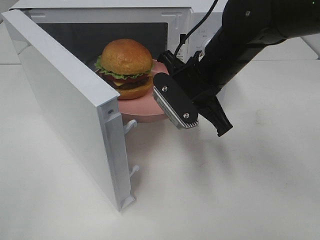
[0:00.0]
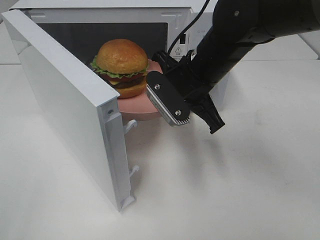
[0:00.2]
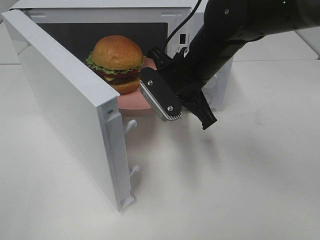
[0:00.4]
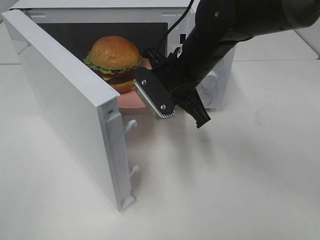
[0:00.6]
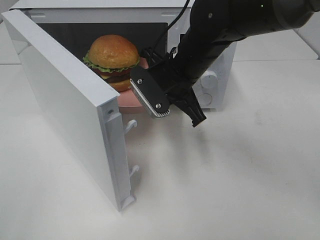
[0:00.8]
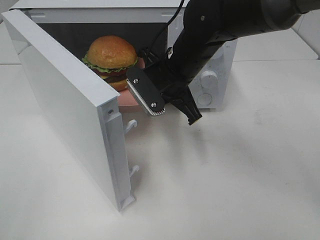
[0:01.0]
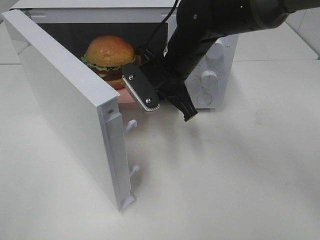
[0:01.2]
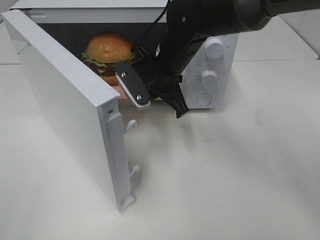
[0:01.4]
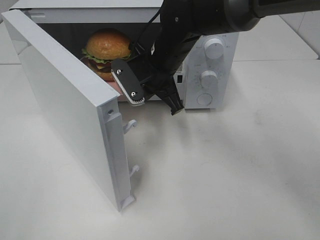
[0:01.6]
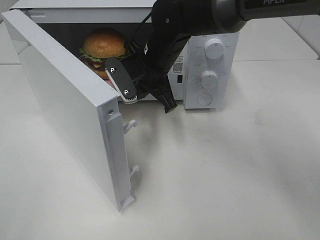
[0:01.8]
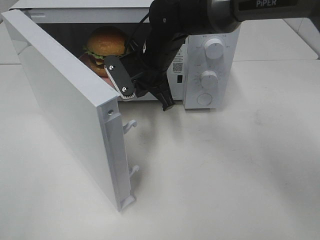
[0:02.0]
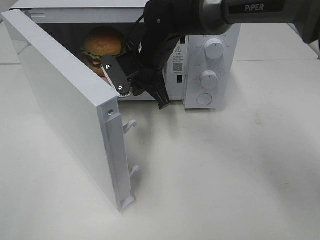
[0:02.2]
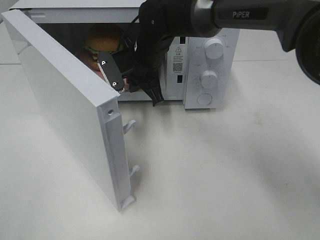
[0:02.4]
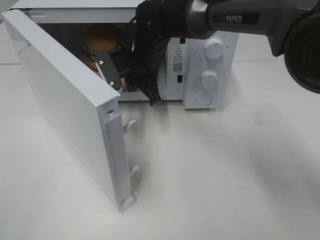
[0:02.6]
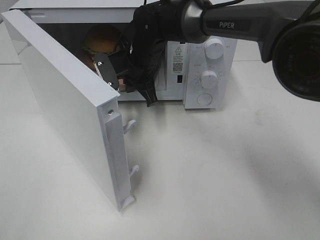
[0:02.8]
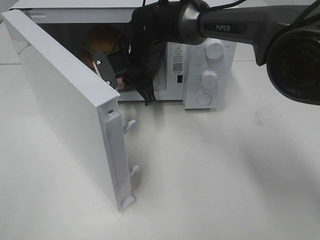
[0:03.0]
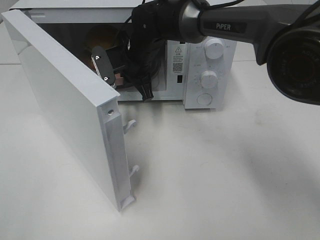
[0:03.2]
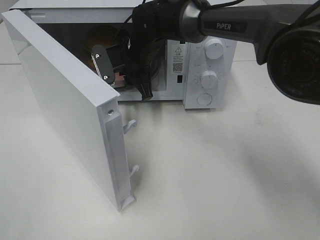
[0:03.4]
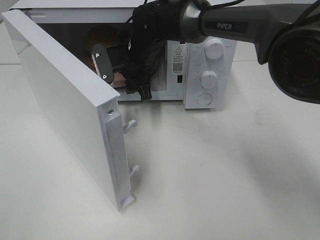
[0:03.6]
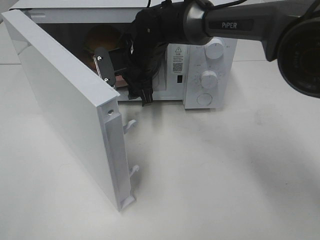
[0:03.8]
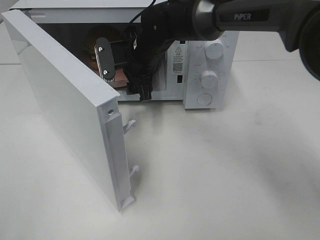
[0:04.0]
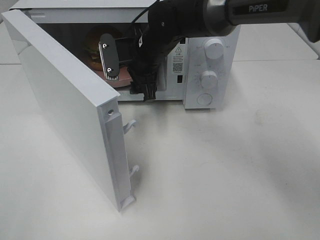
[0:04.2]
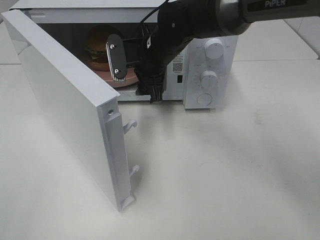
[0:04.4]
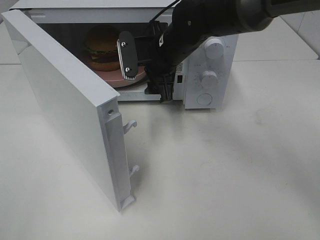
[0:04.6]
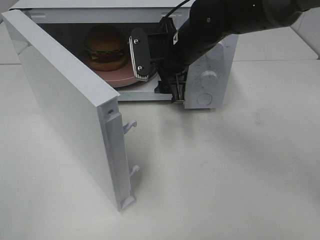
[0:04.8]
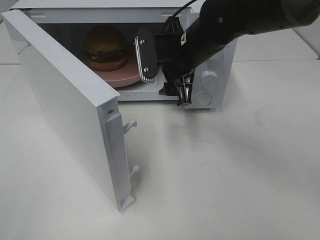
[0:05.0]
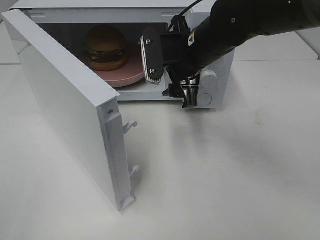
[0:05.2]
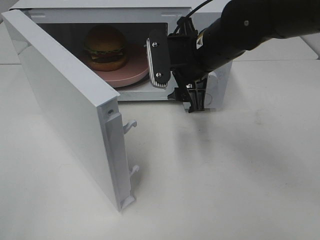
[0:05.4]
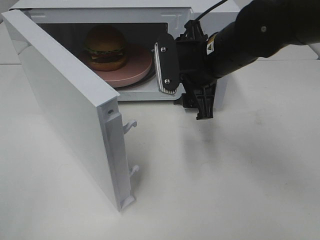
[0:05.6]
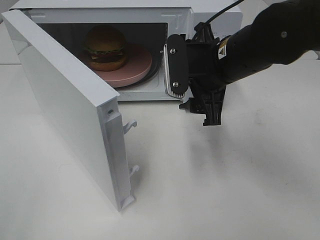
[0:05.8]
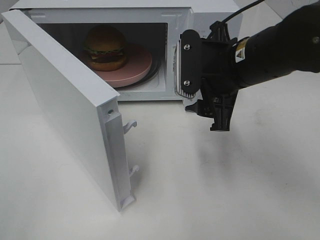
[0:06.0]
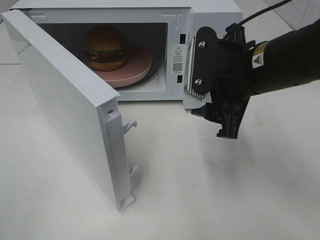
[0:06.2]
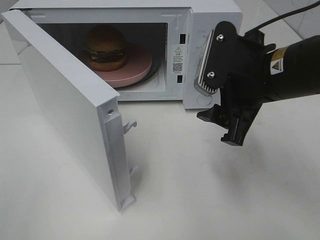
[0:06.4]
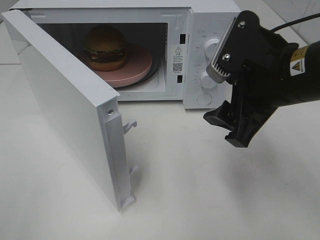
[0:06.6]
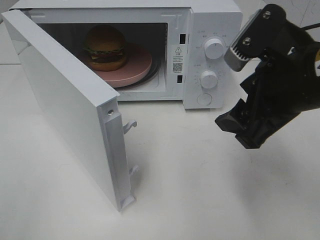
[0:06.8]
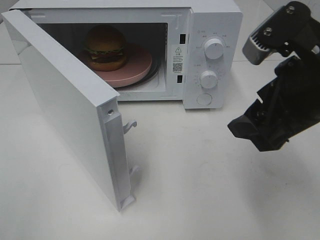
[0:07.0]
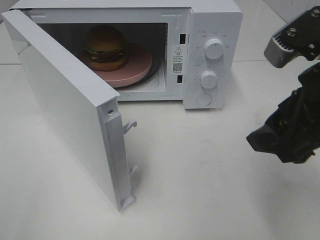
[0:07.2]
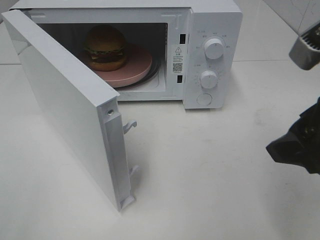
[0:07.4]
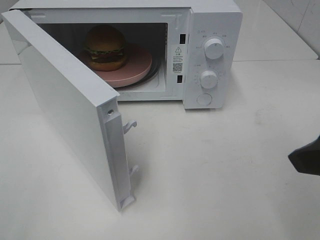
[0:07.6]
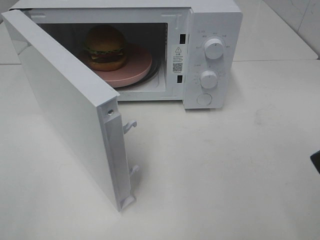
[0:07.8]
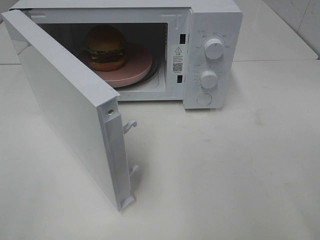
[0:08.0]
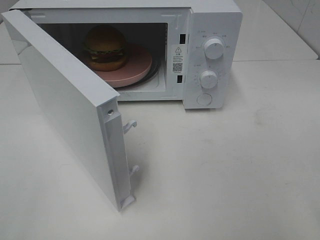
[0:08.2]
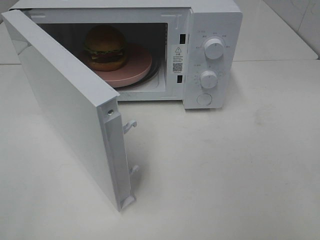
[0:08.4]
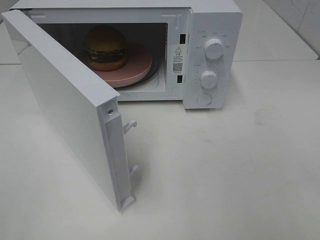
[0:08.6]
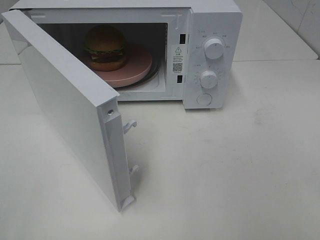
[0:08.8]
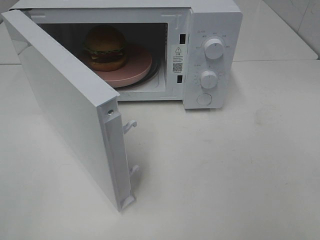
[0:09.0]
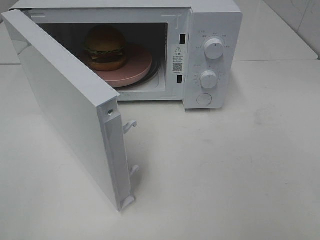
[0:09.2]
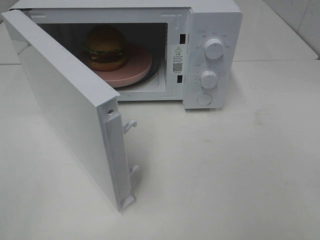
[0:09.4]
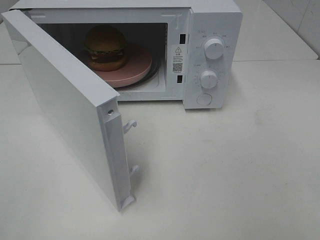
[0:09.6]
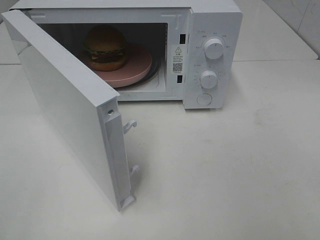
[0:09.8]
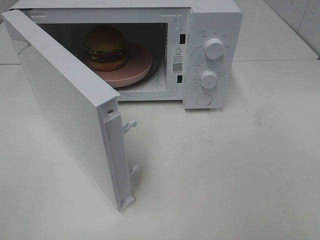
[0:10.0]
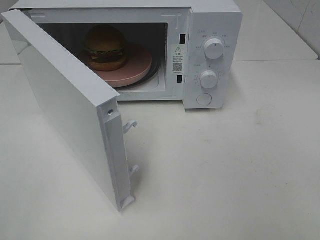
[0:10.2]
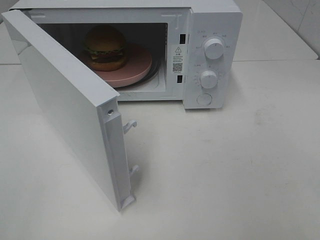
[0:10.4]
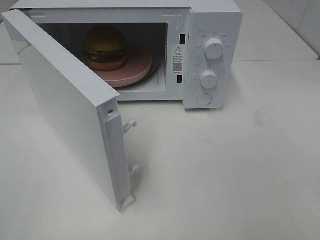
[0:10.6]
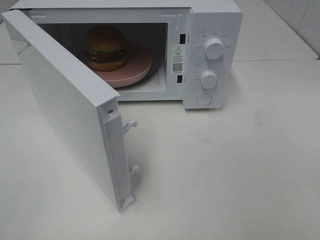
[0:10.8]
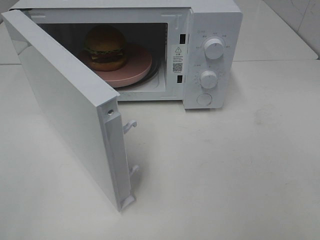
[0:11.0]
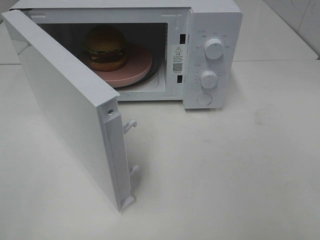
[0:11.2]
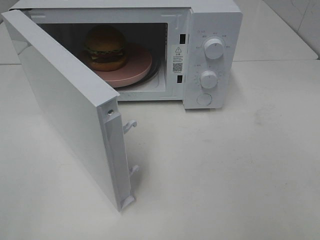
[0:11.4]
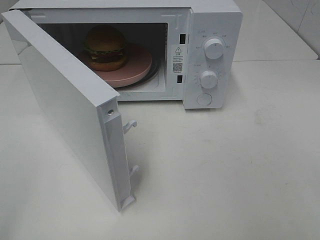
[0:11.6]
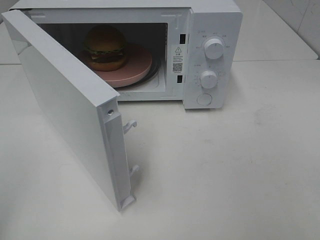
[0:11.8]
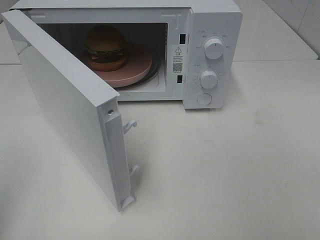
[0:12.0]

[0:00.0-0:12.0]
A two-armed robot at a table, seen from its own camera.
Task of the whole recording: Heat the burger.
Step, 0:00.0 to 0:03.4: Right hand: place the plate in the microwave.
0:00.0 to 0:01.6: The right gripper heads forward and to the left, covering some 10 cm.
0:01.6 to 0:03.0: The right gripper shifts some 5 cm forward.
0:03.0 to 0:04.4: The right gripper changes place by roughly 5 cm, and opens its fingers.
0:04.4 to 0:06.0: The right gripper is displaced backward and to the right by about 15 cm.
0:06.0 to 0:07.6: The right gripper is displaced backward, to the right and upward by some 20 cm.
0:07.6 to 0:09.0: The right gripper moves backward and to the right, roughly 15 cm.
0:09.0 to 0:10.4: Neither gripper changes place.

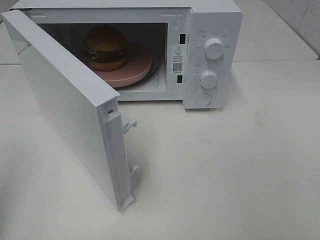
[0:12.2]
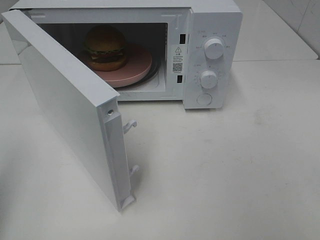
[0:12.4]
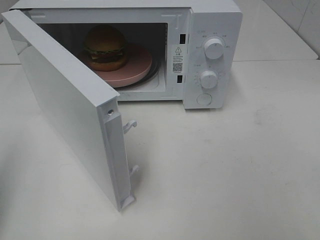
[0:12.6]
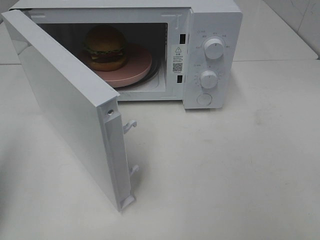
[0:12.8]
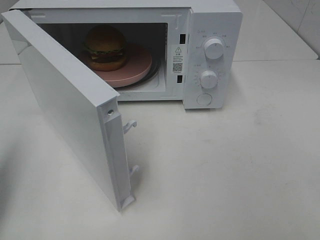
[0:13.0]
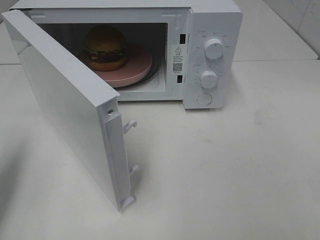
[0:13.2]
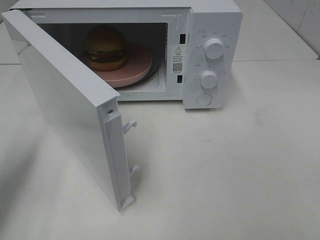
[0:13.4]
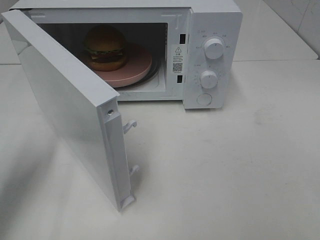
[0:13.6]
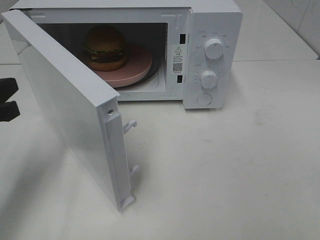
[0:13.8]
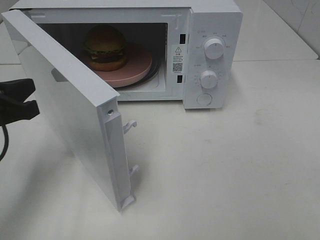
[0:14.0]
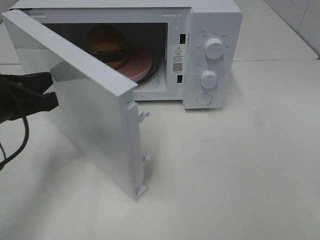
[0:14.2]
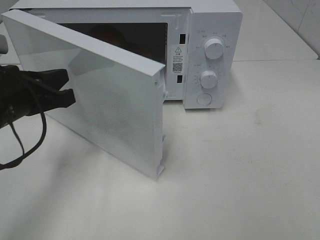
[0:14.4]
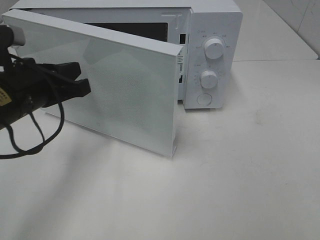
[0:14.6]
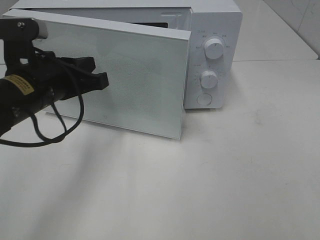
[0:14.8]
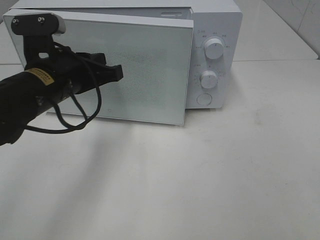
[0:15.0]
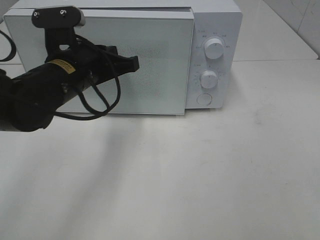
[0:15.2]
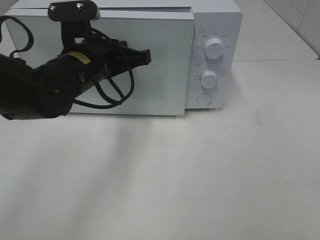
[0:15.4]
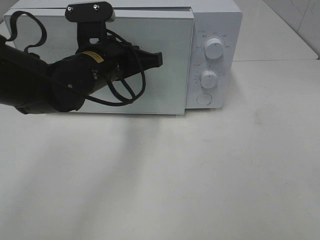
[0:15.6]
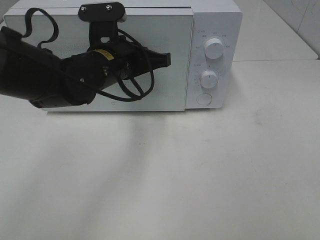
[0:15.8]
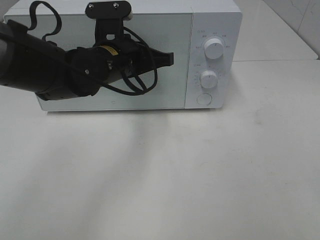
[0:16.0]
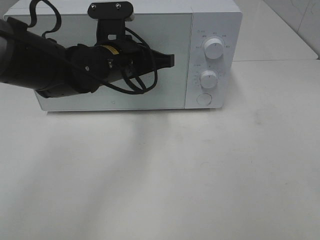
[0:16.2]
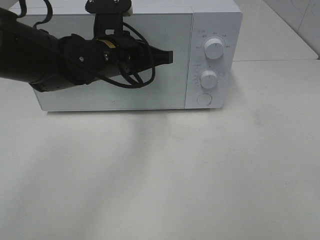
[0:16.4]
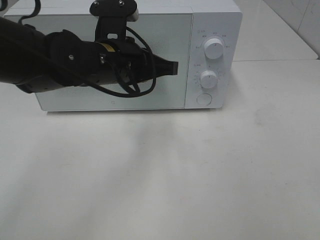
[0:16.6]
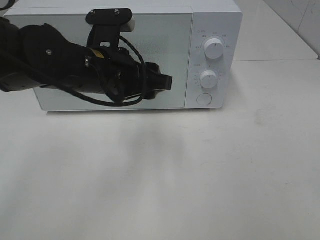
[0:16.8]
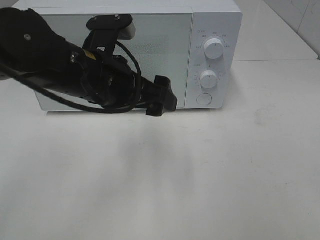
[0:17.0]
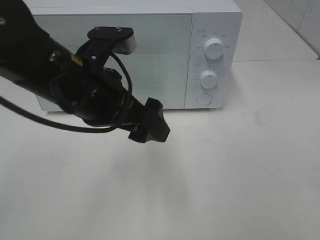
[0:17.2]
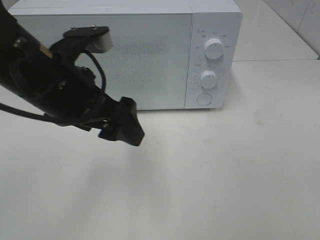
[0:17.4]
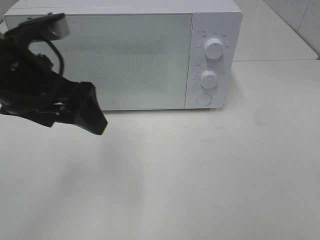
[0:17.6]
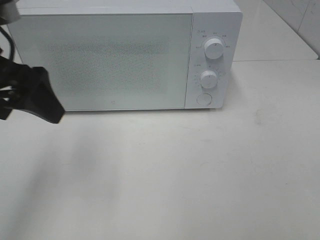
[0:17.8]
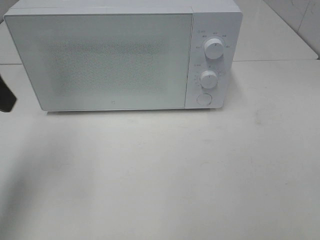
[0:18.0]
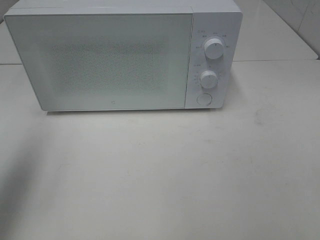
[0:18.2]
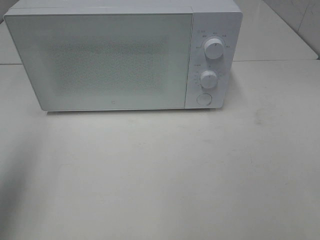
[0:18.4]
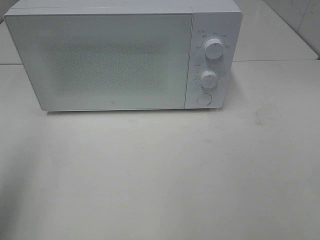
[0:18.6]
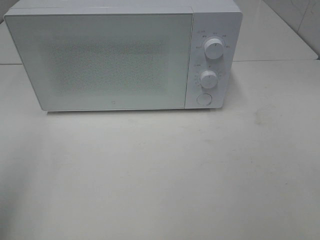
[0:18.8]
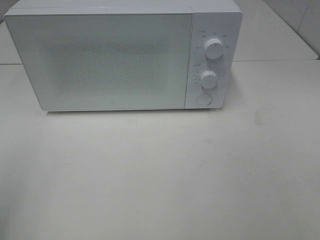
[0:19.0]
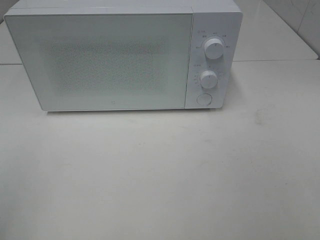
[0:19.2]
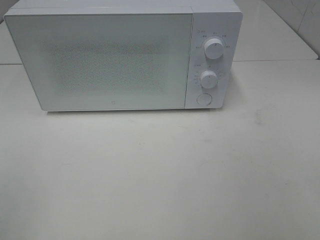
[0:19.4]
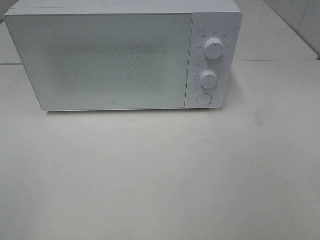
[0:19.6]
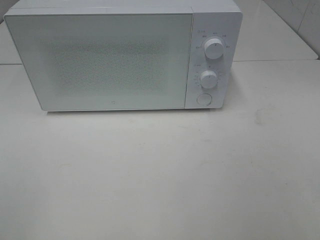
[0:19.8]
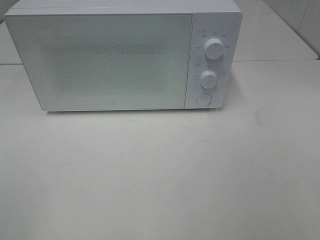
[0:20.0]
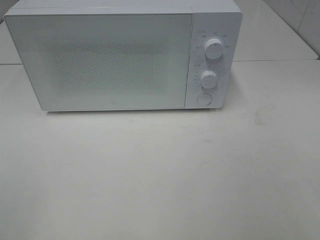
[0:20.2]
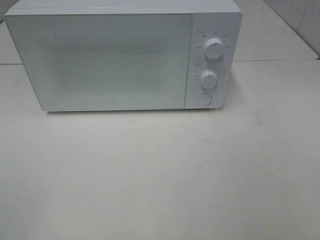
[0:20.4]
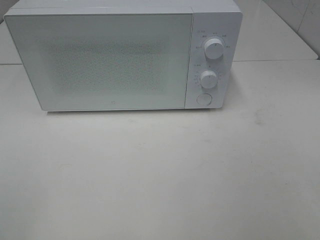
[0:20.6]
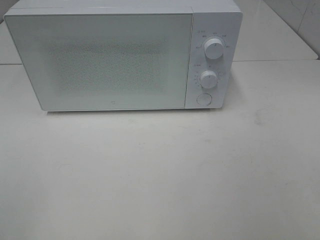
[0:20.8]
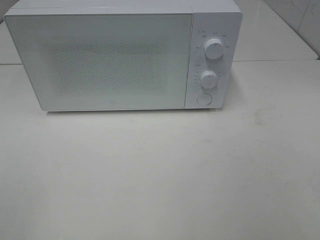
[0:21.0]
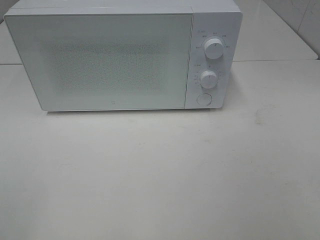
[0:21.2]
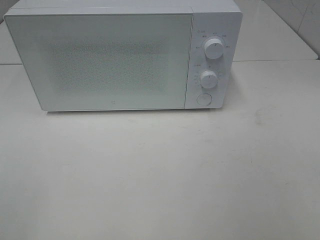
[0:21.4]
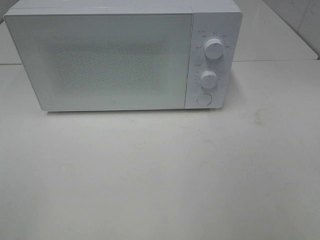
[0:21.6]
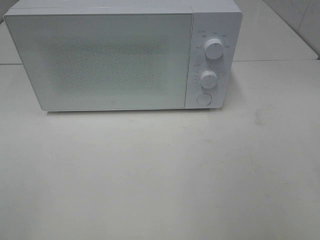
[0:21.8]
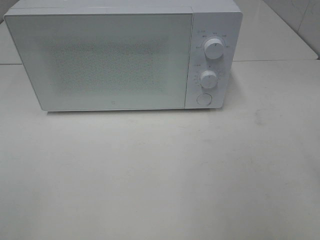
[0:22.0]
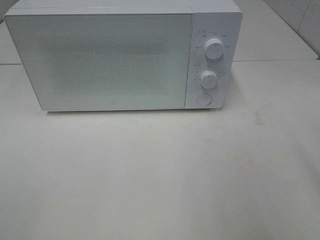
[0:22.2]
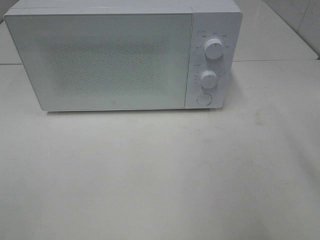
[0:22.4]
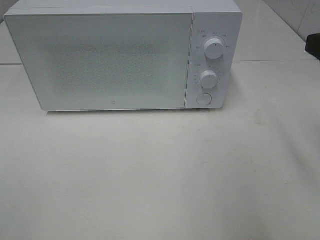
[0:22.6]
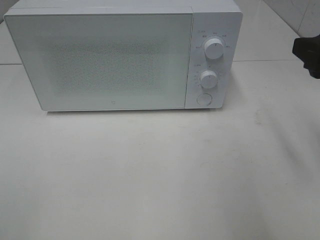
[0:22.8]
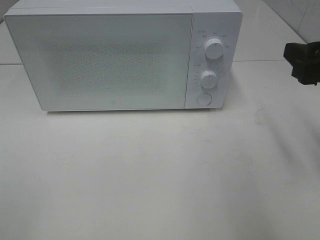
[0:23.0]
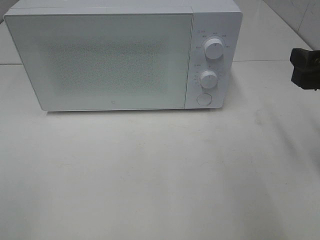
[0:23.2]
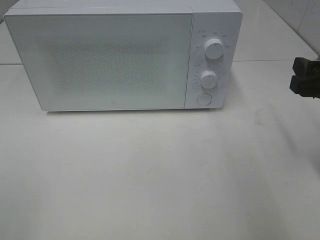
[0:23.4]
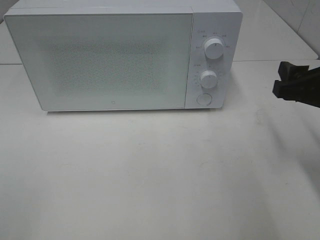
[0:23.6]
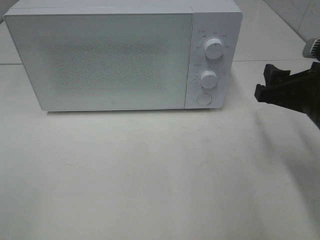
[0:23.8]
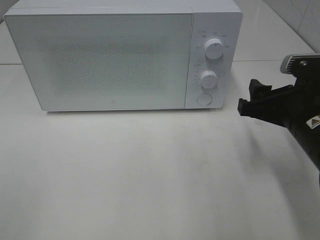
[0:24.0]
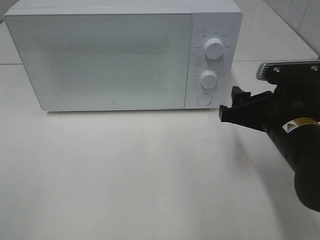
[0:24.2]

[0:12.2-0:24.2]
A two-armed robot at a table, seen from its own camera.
Task of the whole recording: Heat the burger.
Step, 0:12.2 to 0:16.8: Left hand: close the microwave door.
0:12.2 to 0:13.8: The left gripper travels forward, downward and to the right by approximately 20 cm.
0:13.8 to 0:15.2: The left gripper heads to the right and forward, covering some 15 cm.
0:15.2 to 0:16.6: The left gripper heads to the right, covering approximately 5 cm.
0:16.6 to 0:18.2: The left gripper travels to the left, upward and backward by about 30 cm, and opens its fingers.
0:18.2 to 0:19.8: The left gripper heads backward, covering roughly 20 cm.
0:19.8 to 0:21.2: The two grippers keep their place.
0:22.6 to 0:24.2: The right gripper is displaced downward and to the left by approximately 15 cm.
